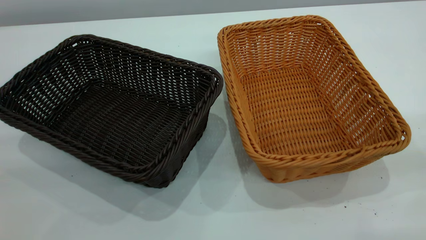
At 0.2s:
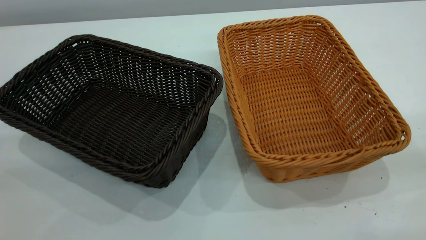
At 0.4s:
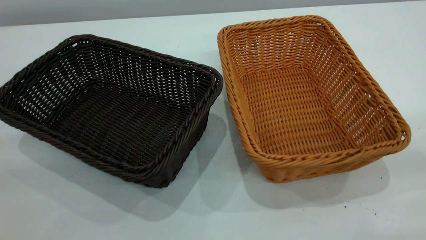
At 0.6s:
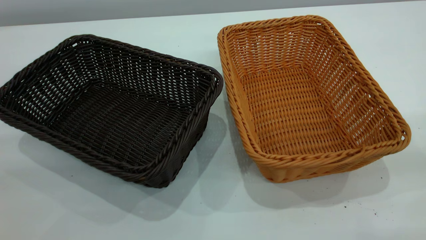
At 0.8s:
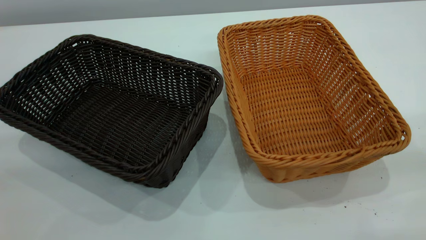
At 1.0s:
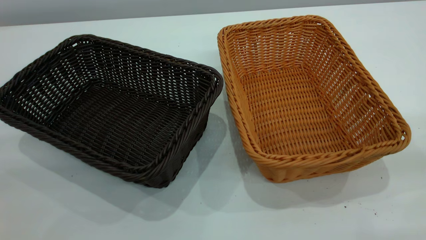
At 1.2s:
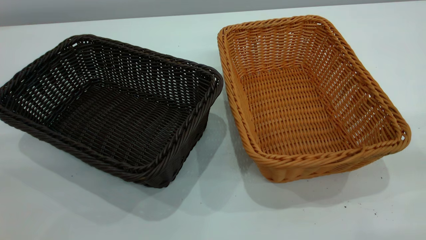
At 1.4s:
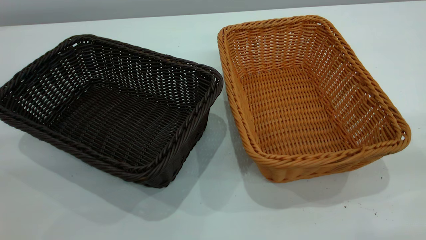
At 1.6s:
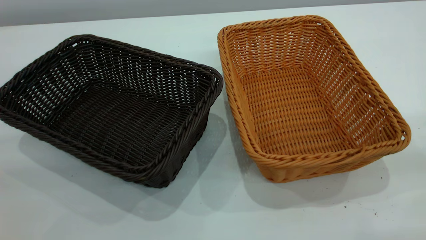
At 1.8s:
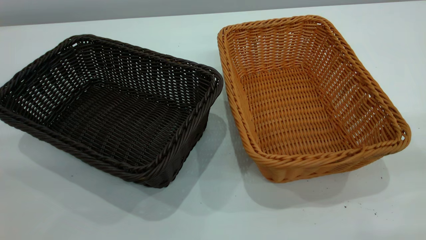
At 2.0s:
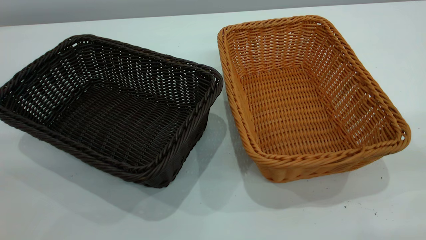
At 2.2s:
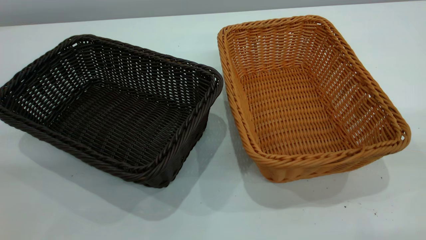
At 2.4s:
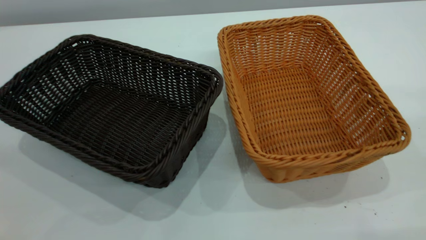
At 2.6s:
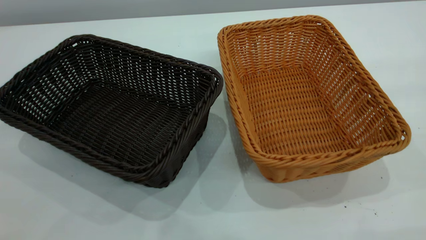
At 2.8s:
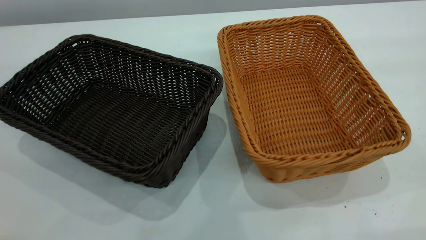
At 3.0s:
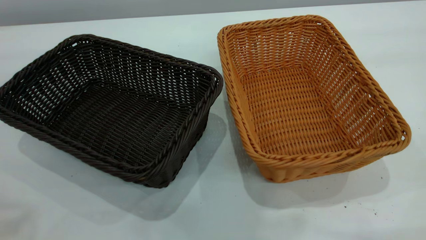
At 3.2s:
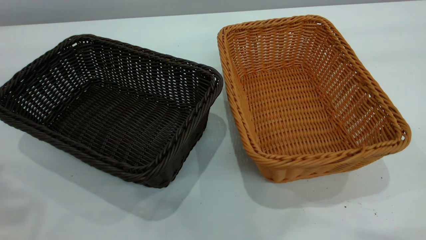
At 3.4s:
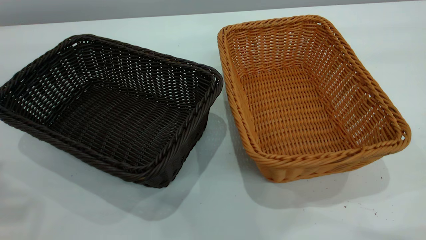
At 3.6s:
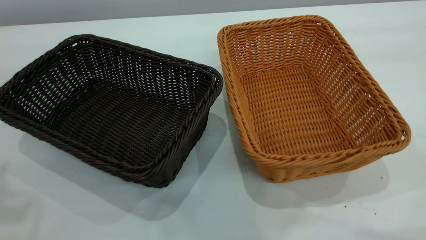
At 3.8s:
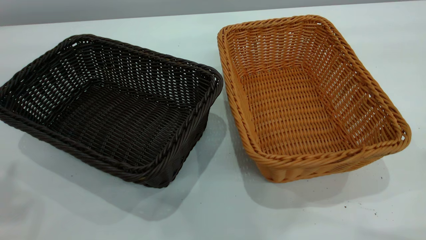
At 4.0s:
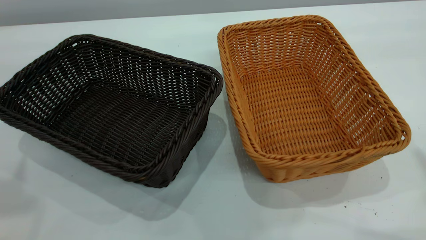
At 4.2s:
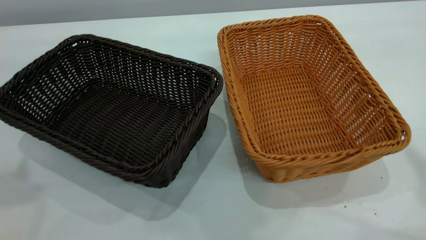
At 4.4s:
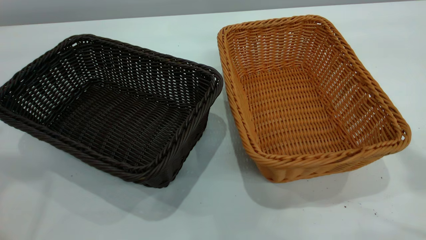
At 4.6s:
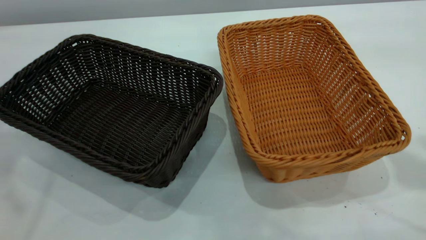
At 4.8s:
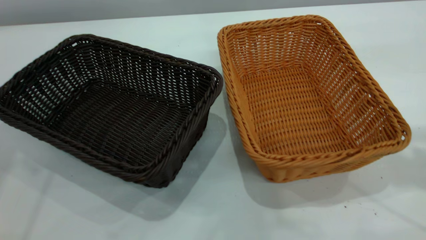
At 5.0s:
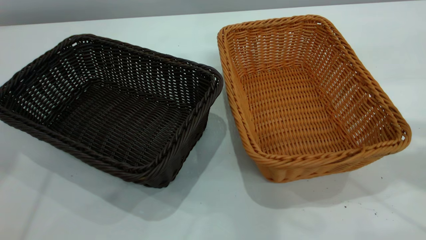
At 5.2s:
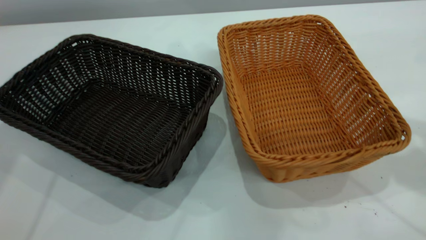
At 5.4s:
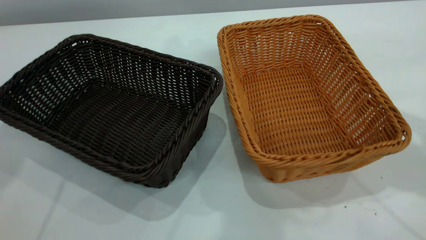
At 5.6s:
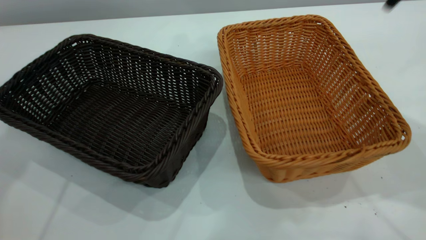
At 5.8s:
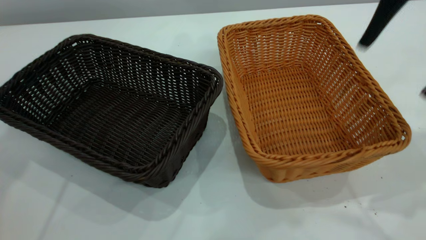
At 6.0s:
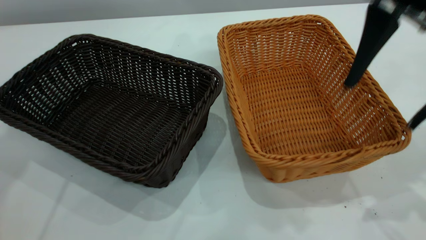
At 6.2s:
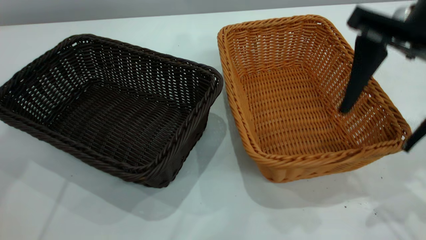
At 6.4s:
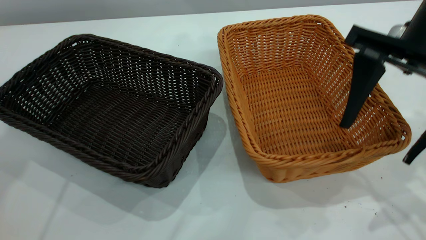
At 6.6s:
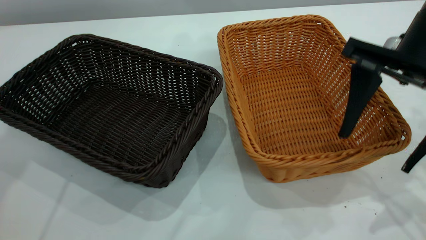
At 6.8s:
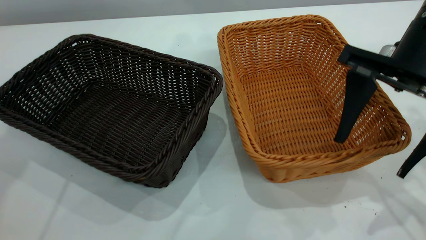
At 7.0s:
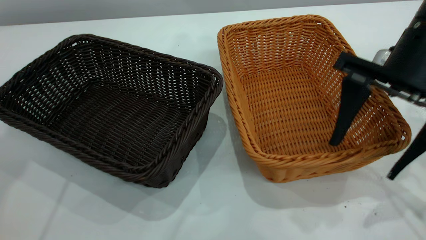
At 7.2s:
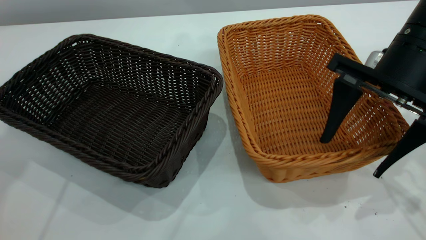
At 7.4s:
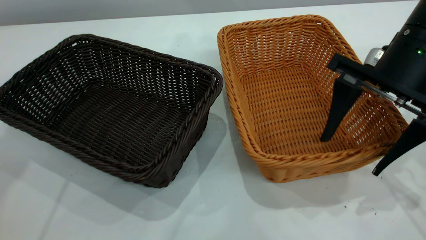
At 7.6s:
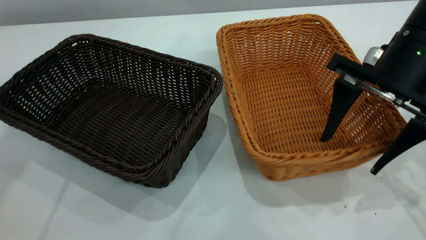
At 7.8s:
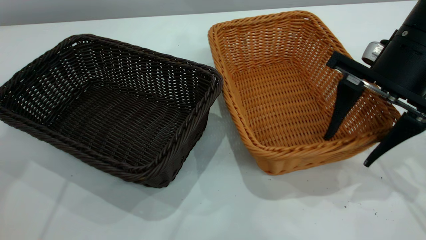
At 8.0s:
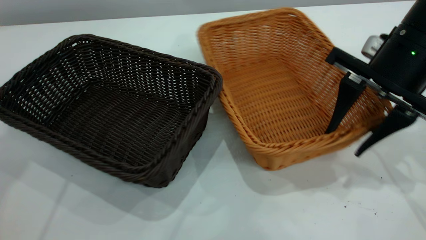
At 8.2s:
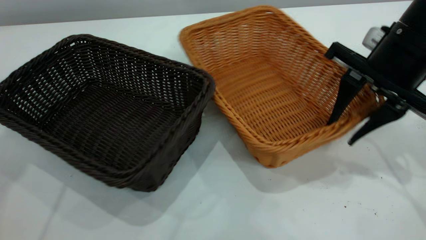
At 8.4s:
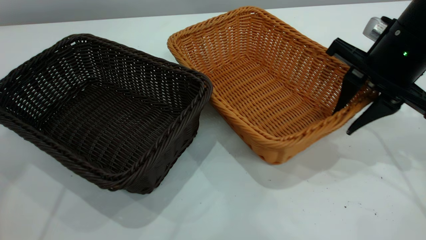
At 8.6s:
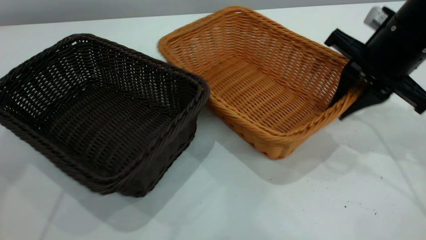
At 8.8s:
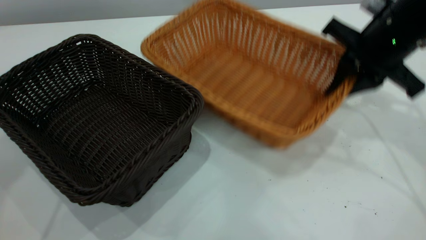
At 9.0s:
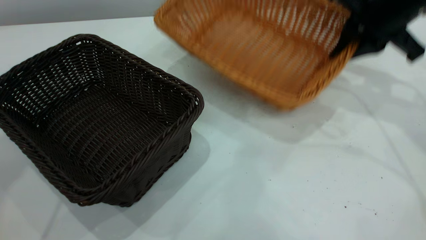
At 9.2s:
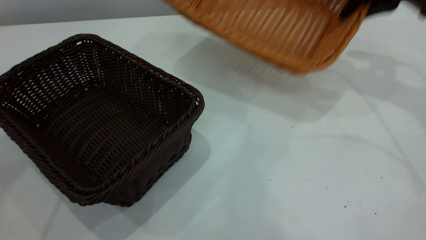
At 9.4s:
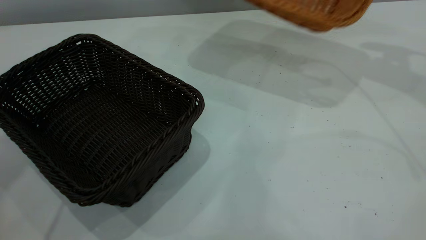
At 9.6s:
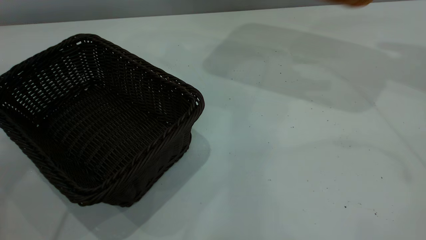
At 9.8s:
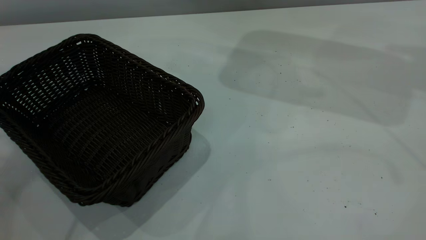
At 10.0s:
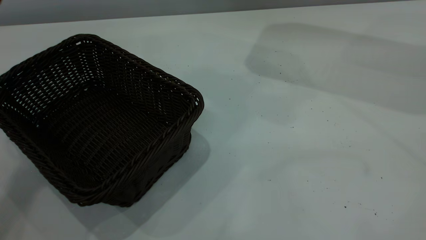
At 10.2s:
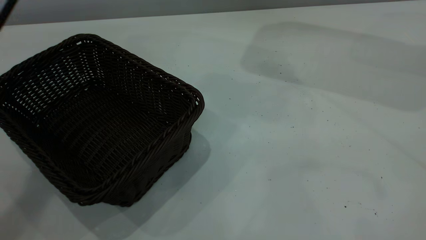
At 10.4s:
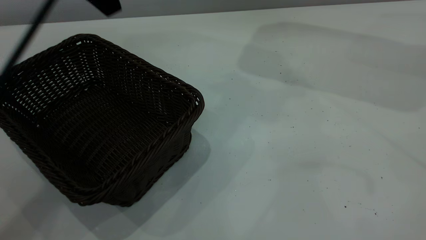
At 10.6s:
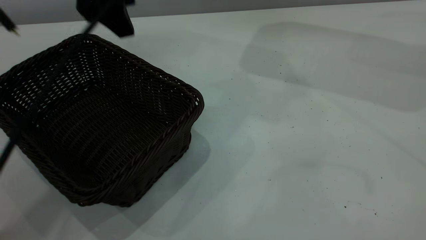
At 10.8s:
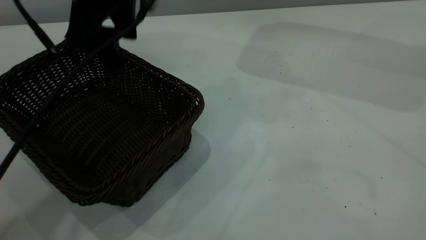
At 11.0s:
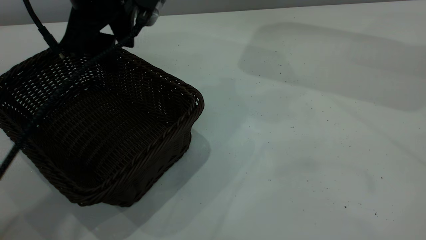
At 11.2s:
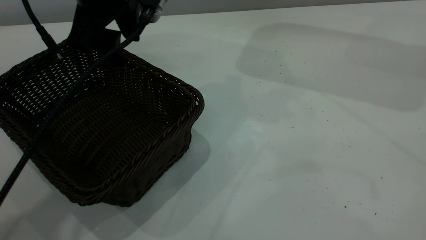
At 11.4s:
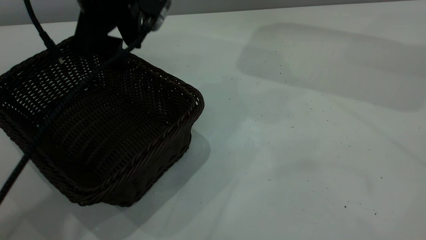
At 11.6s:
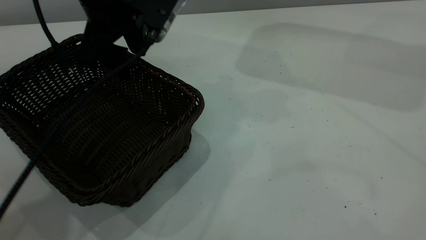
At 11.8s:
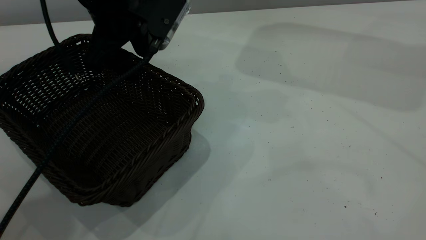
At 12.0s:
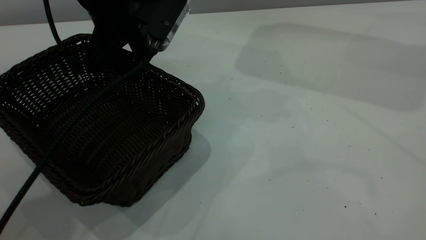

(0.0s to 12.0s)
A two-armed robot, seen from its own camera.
Task of the whole recording: the left gripper grasp the black basket and place it in the center of the table, the right gripper grasp the brown basket and place it inside the black one.
Step, 0.0s - 9.0s: Pick up the light basket with the right gripper.
0.0s - 1.6s: Both grippers stay about where they are.
1.6s - 3.0s: Both grippers travel together forward and upward, approximately 20 cm.
4.4s - 6.0s: The right gripper is displaced downward, forward and to the left by approximately 20 cm; the left gripper heads forward, covering about 20 cm.
6.0s - 7.6s: The right gripper shifts approximately 10 cm downward.
7.6s - 9.0s: The right gripper travels forward by about 10 cm, and closes up.
9.0s - 10.4s: The left gripper moves to the right, downward and backward, some 15 cm. The right gripper is displaced upward by about 25 cm.
10.4s - 12.0s: The left gripper is displaced downward by approximately 10 cm.

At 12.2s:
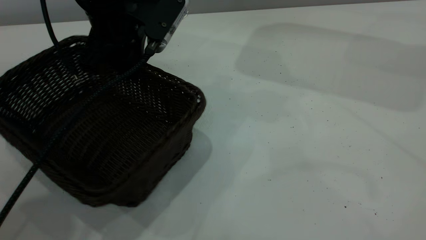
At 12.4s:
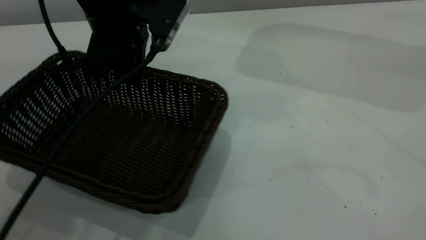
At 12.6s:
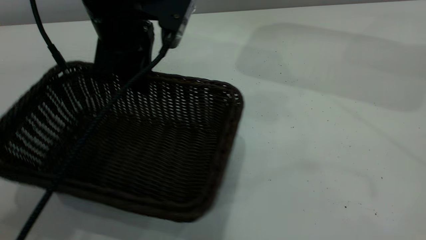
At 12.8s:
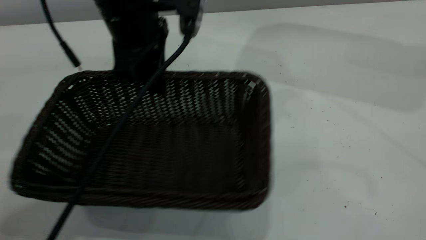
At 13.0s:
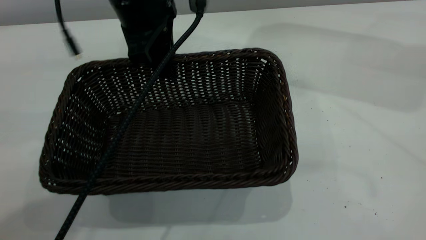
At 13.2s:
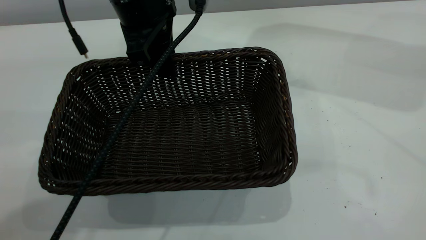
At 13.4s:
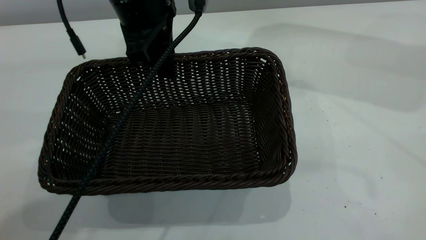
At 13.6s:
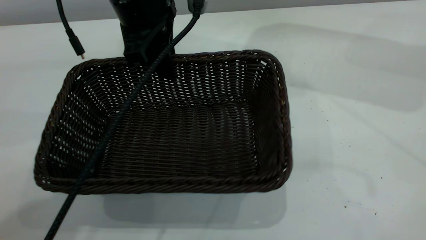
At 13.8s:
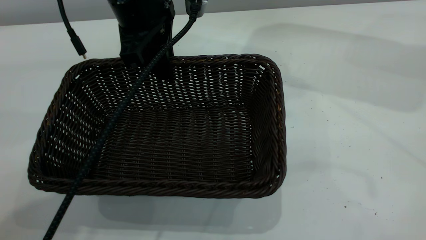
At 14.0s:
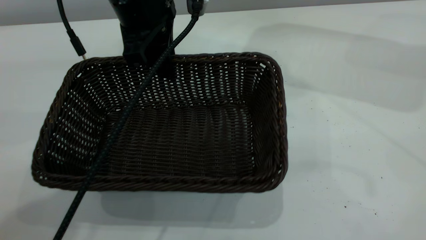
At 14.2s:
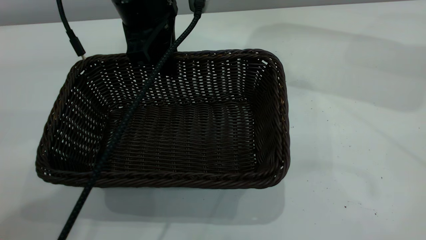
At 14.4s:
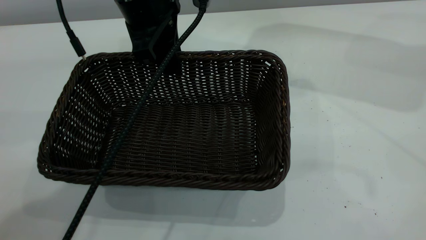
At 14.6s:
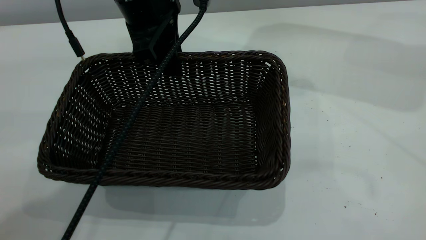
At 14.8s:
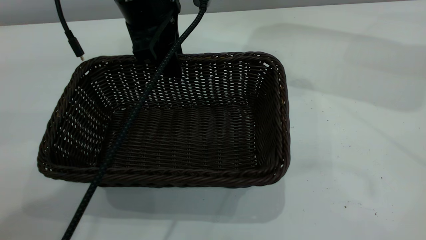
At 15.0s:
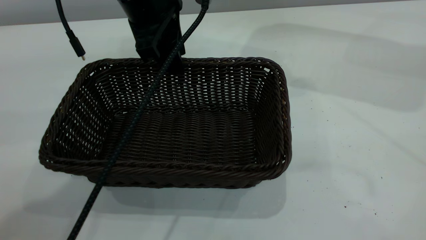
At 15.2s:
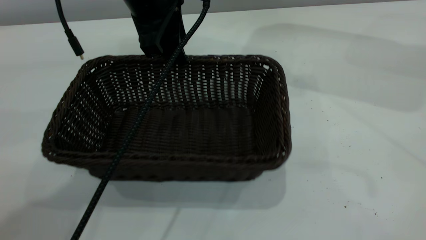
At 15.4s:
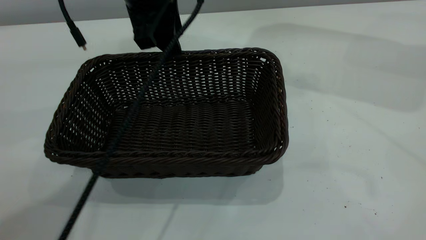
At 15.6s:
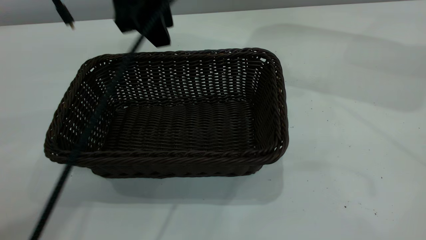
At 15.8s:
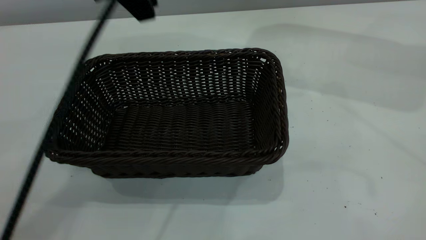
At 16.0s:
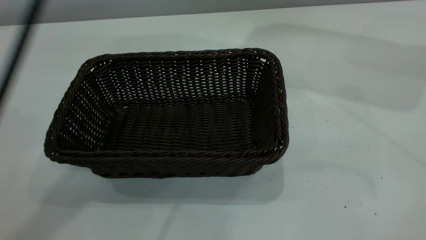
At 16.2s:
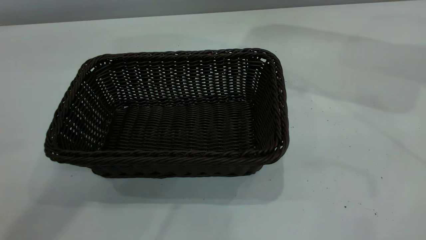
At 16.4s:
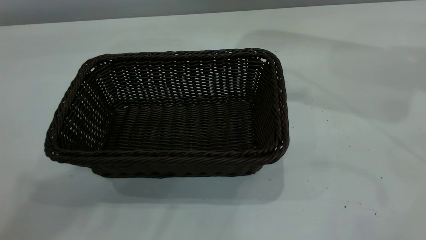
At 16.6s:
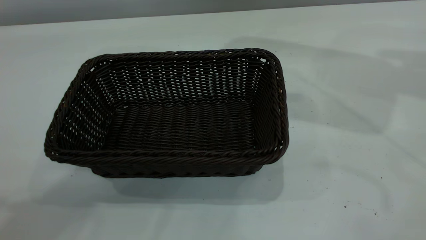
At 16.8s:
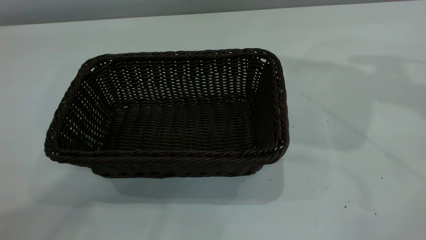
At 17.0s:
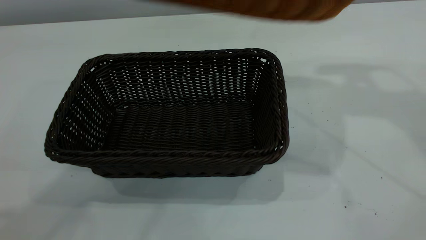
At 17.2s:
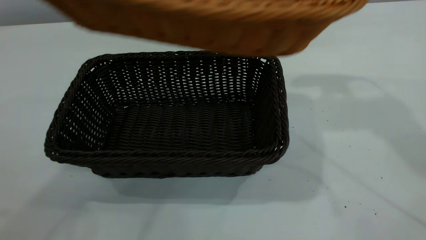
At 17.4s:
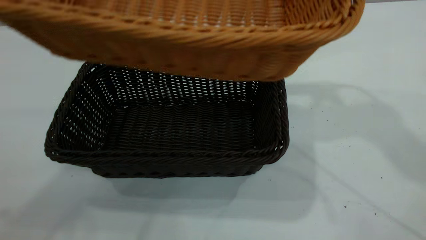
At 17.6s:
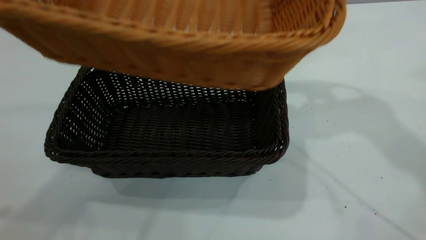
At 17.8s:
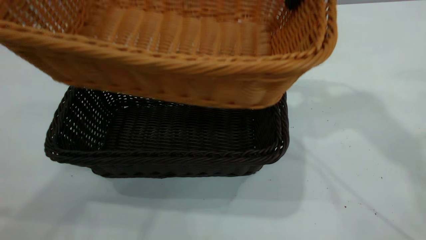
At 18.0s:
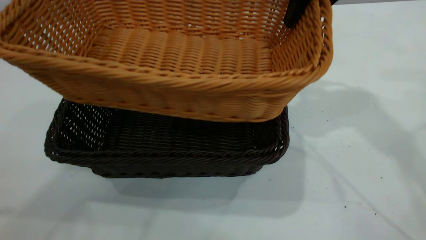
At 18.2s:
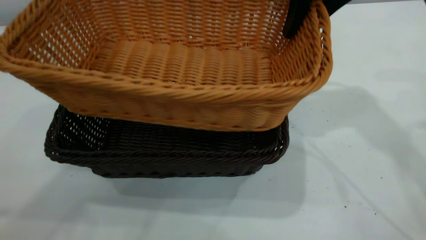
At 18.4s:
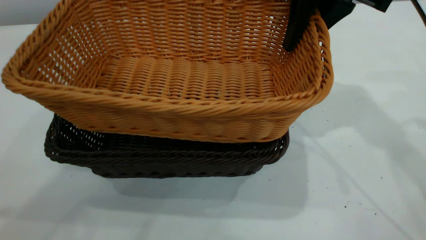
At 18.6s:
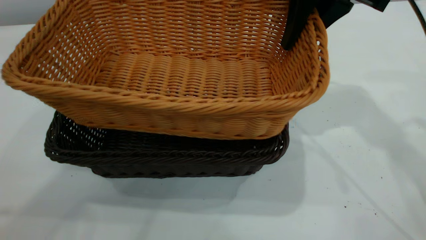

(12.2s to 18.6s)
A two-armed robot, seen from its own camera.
Task of the whole recording: the left gripper grasp the black basket and place it in the center of the table, the right gripper grasp the brown basket and place it inside the black one.
Step, 12.2s - 15.4s: Move the dark basket to the center of view.
13.8s - 15.4s: The left gripper opens up.
15.4s - 17.0s: The left gripper shifts roughly 30 cm upward and backward, and closes its fingers, while the right gripper moves to the left and downward, approximately 15 cm.
17.0s - 18.6s: The right gripper moves downward and to the left, about 15 cm.
